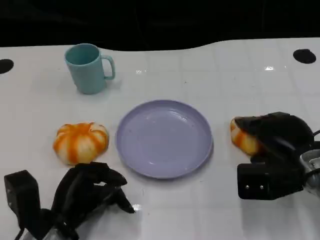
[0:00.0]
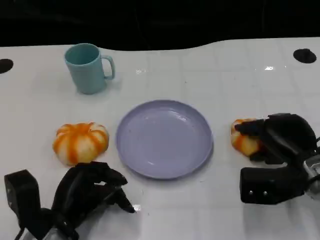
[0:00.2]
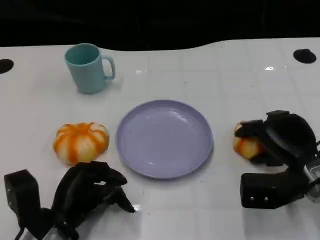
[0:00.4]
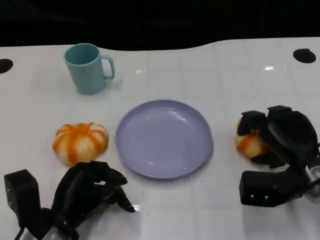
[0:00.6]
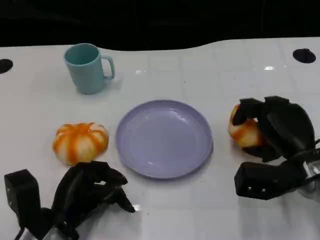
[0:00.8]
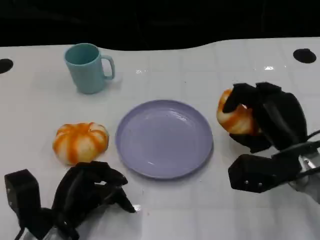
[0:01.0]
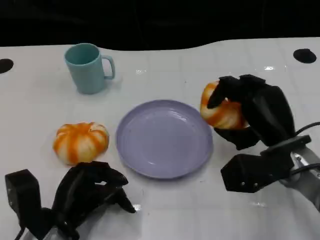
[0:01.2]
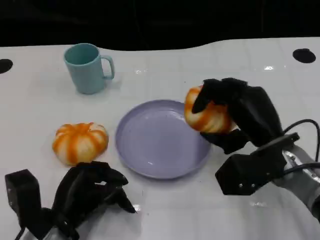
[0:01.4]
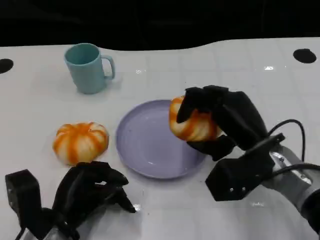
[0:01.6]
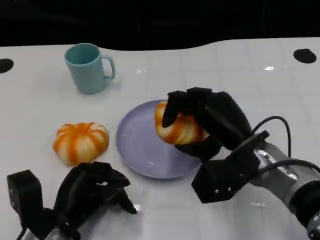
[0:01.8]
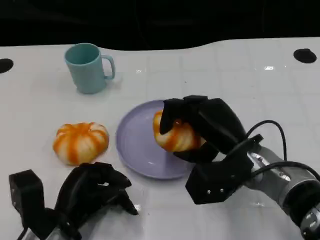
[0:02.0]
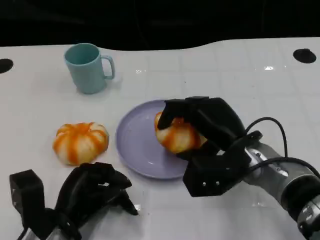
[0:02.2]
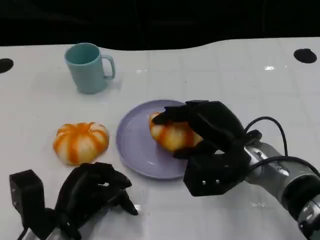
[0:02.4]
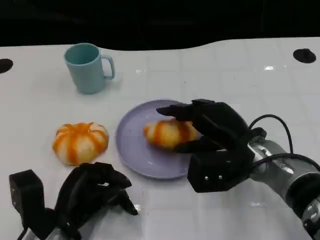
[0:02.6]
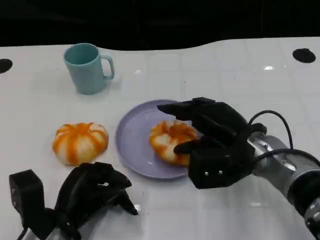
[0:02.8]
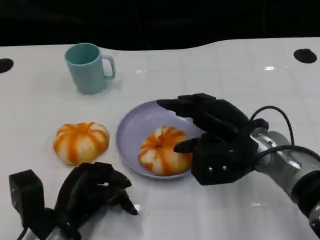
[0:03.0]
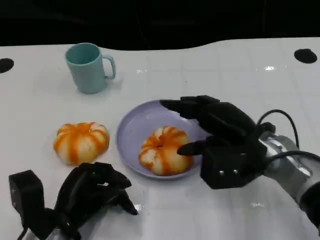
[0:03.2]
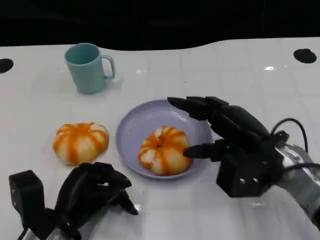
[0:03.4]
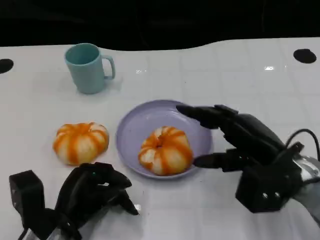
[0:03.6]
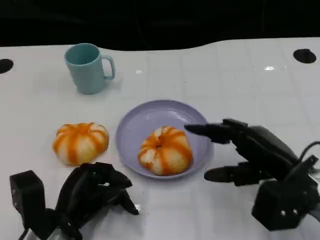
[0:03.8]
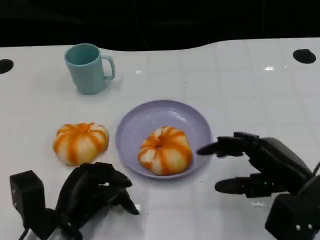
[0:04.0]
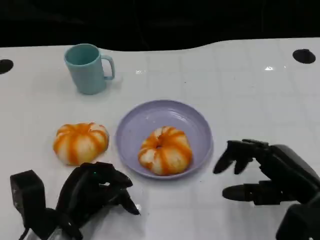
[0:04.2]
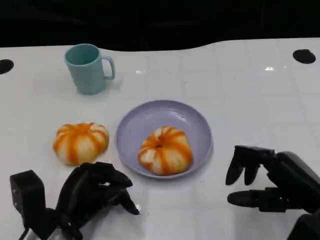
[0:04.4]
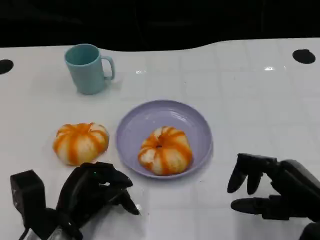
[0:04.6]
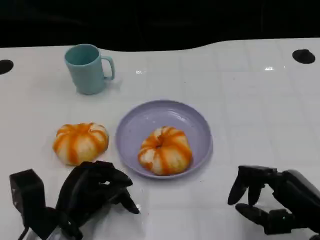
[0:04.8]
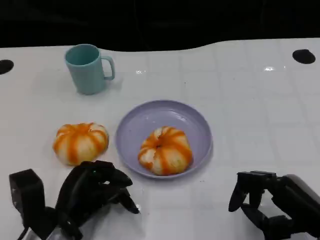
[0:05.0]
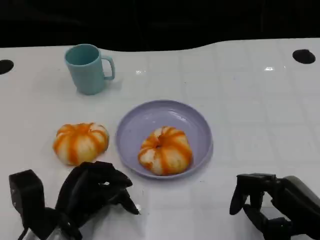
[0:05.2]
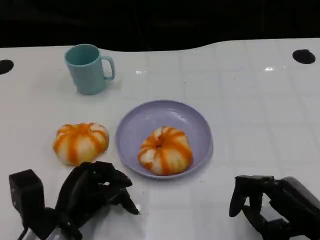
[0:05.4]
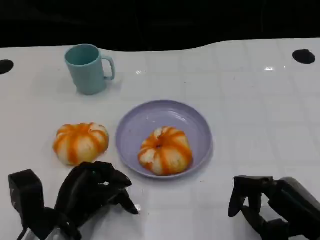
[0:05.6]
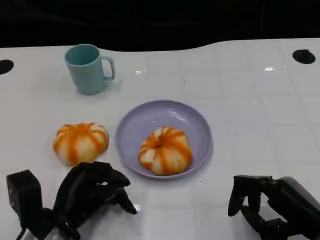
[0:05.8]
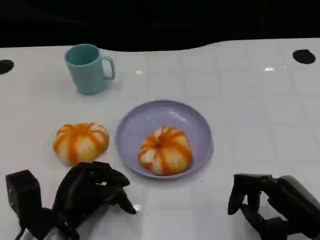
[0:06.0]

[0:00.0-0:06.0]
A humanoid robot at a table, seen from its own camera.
Task of the whole recording: Grasp the bread from the table and place it into the plate.
0:00.0 to 0:01.6: The right hand is displaced to the left by approximately 10 cm.
0:03.0 to 0:04.4: The right hand travels to the right and backward by about 15 cm.
0:04.4 to 0:06.0: There are only small adjustments of the hands.

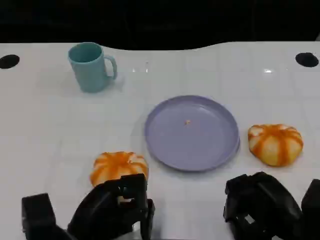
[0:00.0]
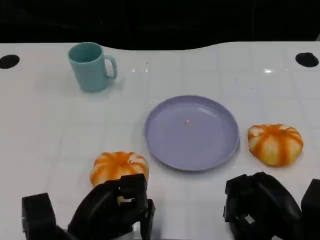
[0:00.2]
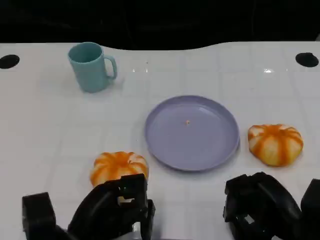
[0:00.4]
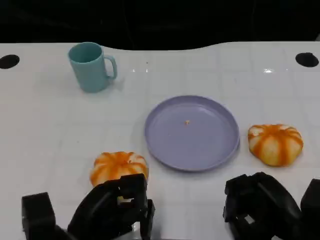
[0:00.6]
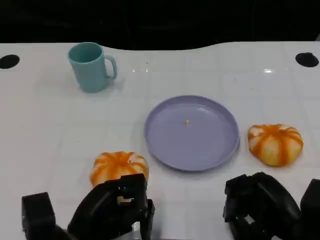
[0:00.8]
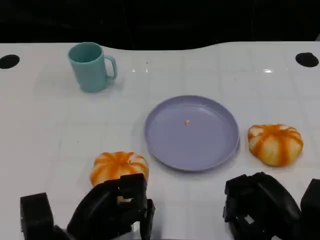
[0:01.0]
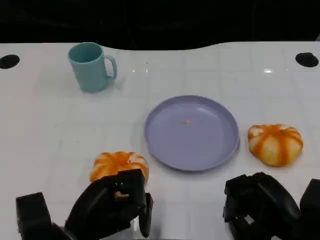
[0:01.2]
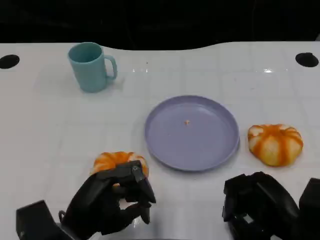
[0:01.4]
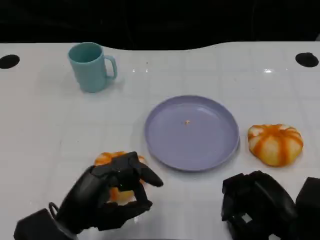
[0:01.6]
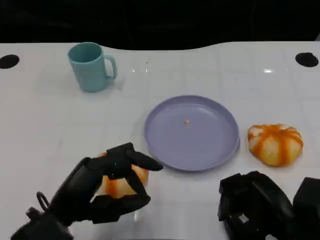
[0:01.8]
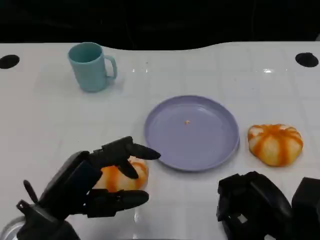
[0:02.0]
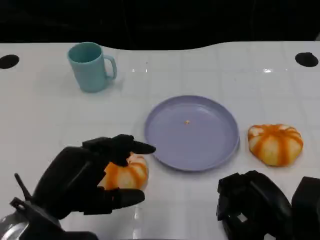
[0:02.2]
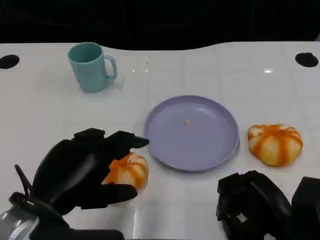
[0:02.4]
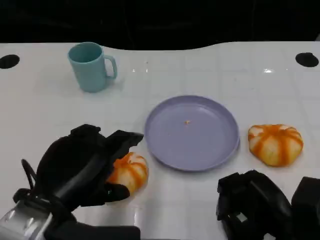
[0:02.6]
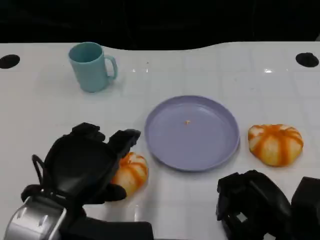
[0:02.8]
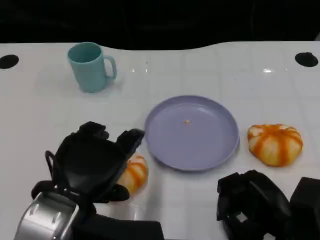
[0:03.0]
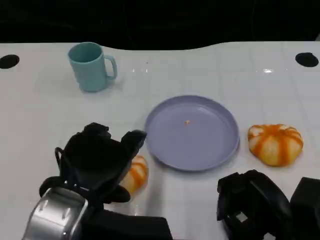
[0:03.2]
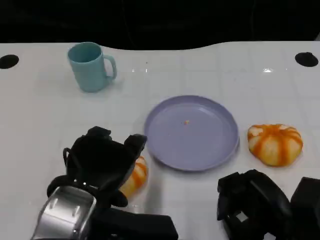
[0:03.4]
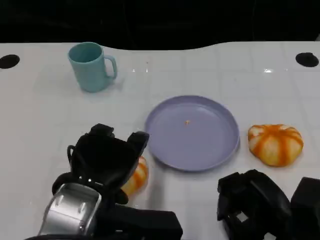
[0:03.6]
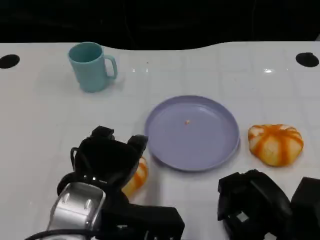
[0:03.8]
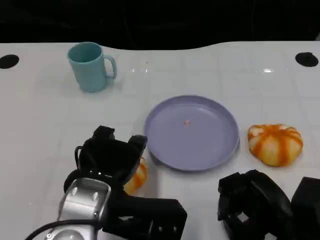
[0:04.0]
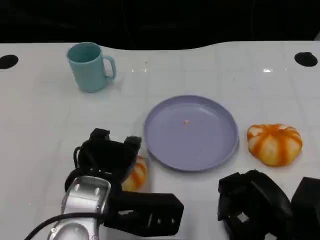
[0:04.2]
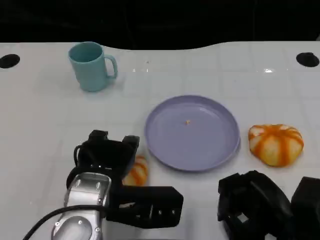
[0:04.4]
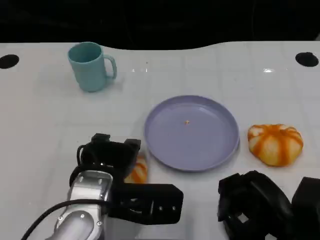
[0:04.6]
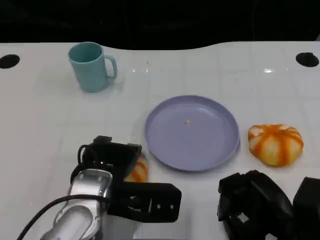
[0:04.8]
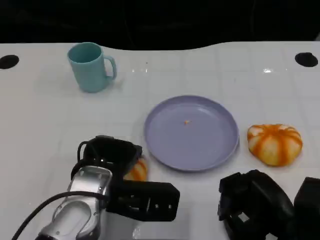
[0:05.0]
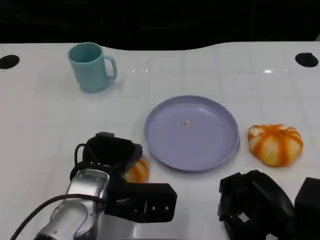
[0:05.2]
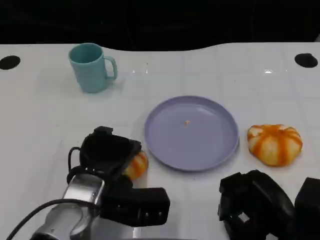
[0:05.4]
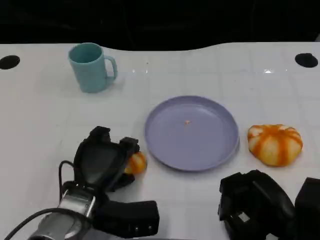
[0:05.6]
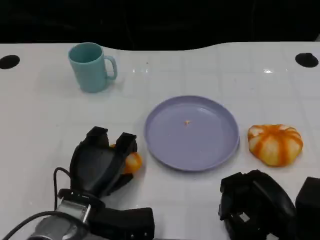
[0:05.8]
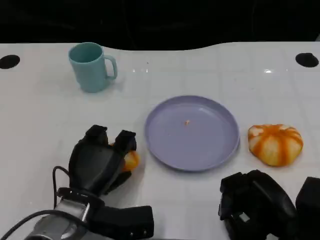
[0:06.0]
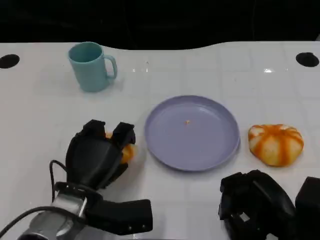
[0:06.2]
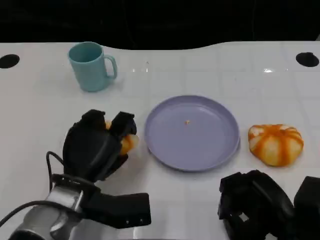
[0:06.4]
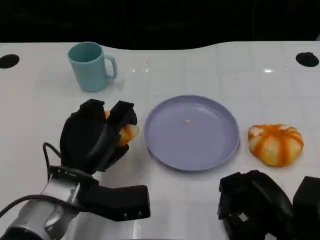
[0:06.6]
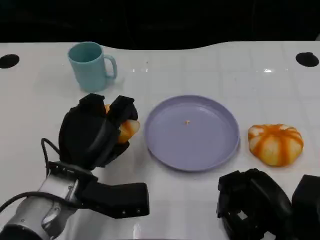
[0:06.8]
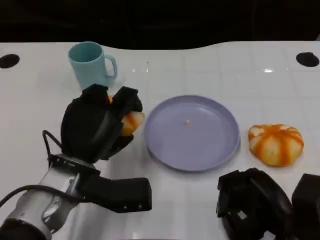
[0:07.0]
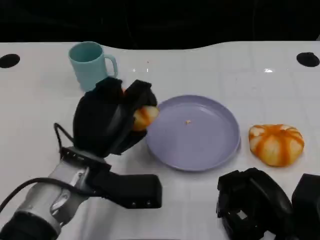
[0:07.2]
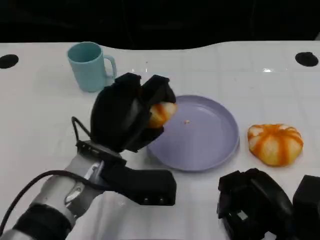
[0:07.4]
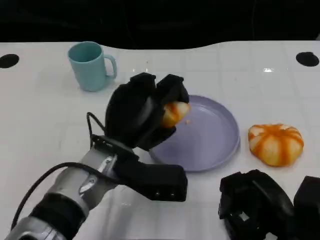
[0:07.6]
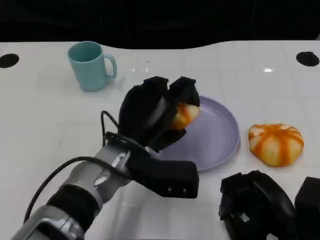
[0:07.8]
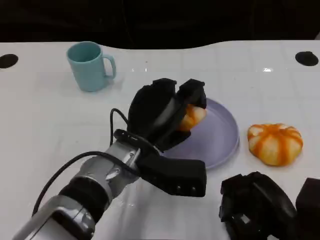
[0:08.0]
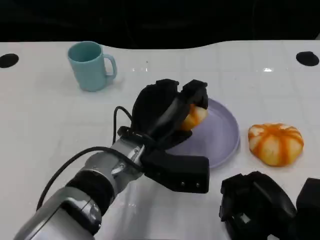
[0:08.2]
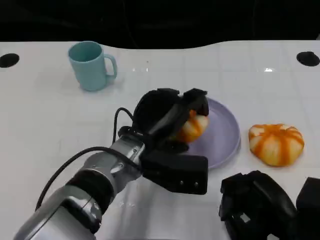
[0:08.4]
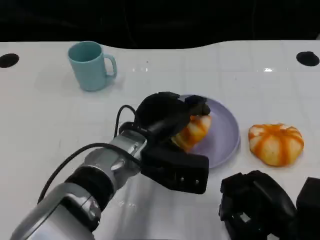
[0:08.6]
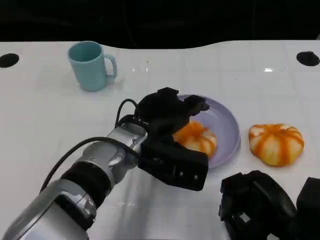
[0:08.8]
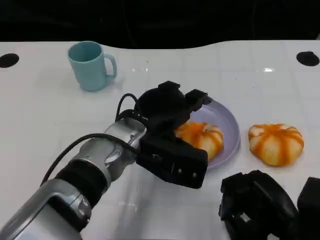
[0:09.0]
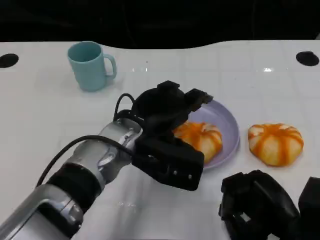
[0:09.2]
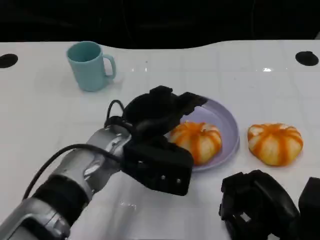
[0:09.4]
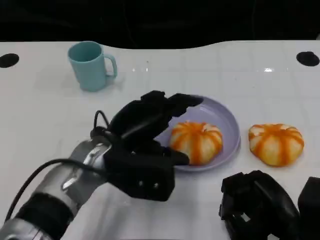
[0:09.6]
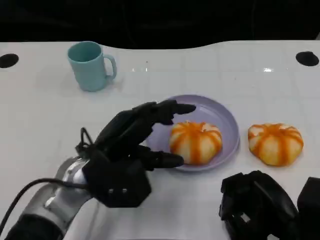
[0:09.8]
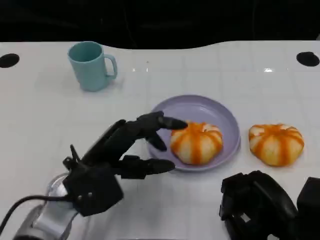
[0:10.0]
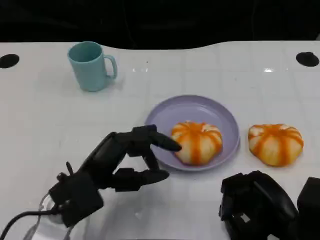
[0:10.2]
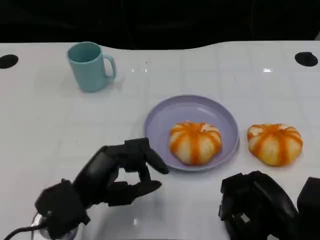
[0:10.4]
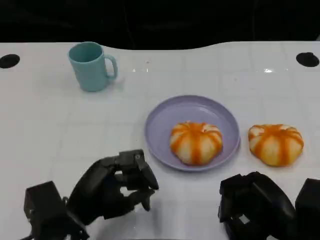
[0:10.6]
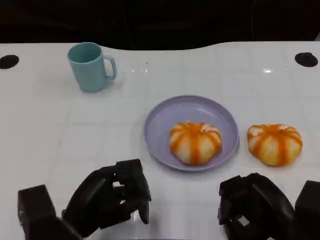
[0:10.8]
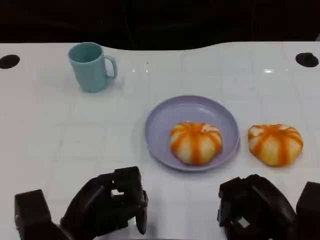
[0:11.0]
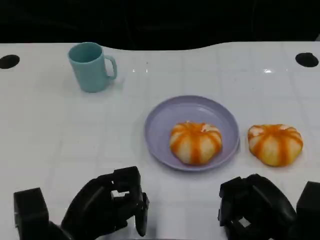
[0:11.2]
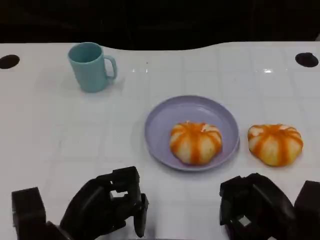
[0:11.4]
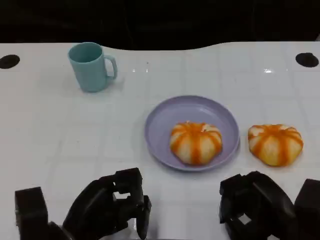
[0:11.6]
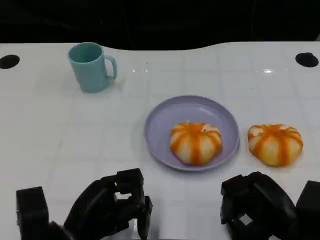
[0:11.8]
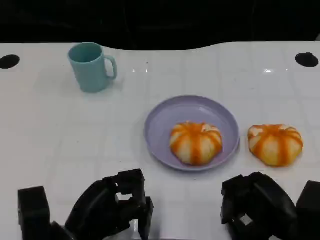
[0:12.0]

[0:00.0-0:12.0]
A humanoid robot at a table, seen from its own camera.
Task of the whole recording: Grasp the bread from the table and place it into the plate.
0:01.6 to 0:03.0: The left hand travels upward by some 10 cm.
0:03.0 to 0:04.4: The left hand changes place by about 10 cm.
0:04.4 to 0:06.0: The left hand moves downward, approximately 10 cm.
0:06.0 to 0:07.6: The left hand is displaced upward and to the right by approximately 10 cm.
0:09.0 to 0:10.4: The left hand goes roughly 15 cm to the left, backward and downward.

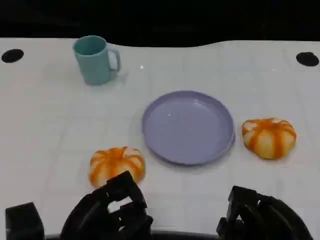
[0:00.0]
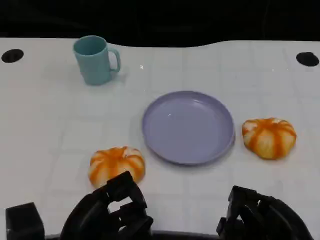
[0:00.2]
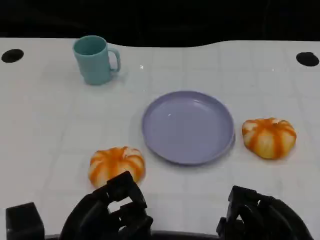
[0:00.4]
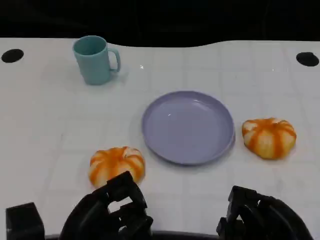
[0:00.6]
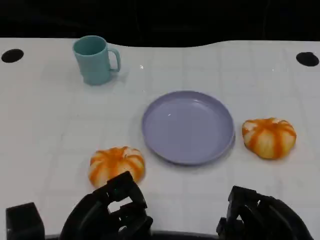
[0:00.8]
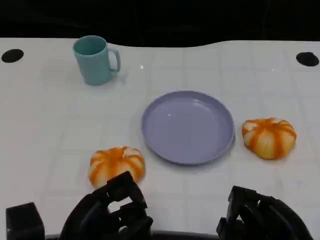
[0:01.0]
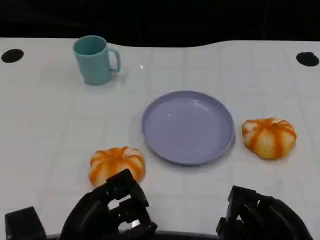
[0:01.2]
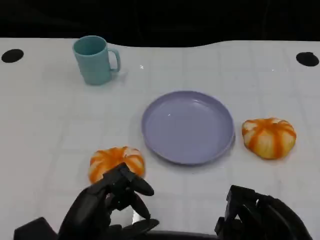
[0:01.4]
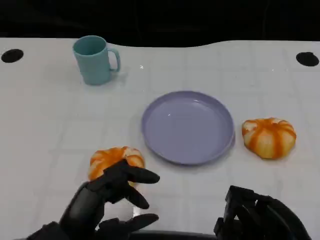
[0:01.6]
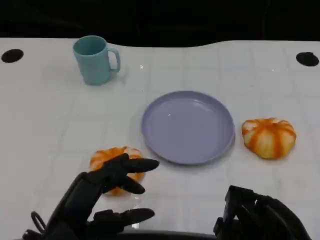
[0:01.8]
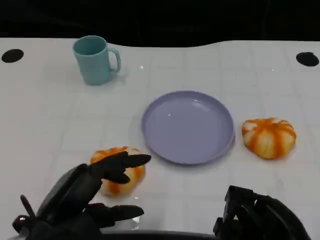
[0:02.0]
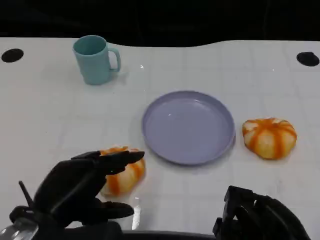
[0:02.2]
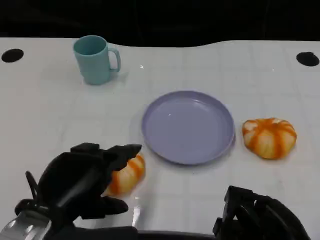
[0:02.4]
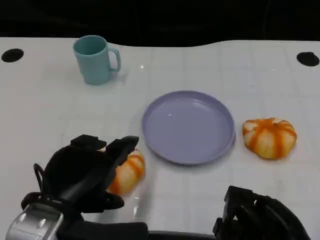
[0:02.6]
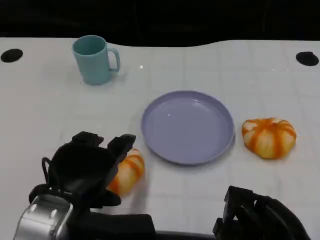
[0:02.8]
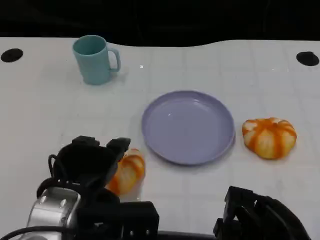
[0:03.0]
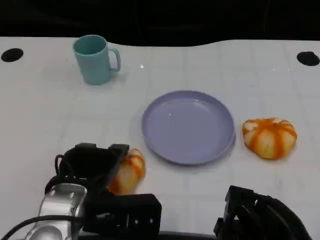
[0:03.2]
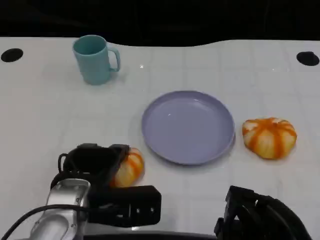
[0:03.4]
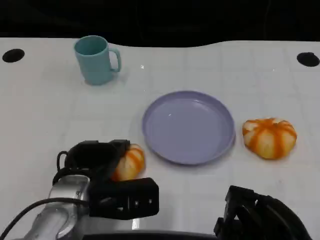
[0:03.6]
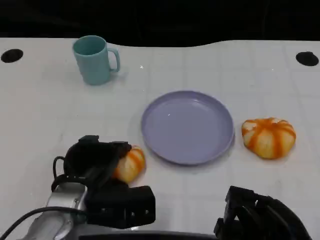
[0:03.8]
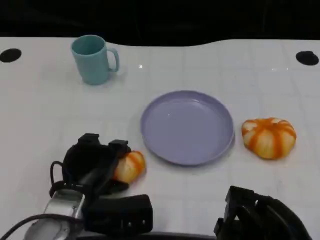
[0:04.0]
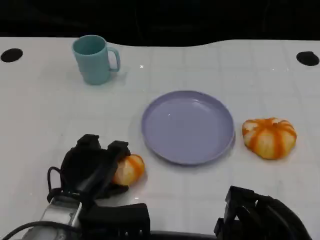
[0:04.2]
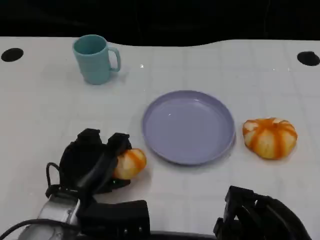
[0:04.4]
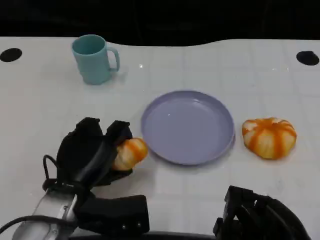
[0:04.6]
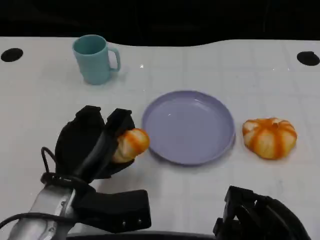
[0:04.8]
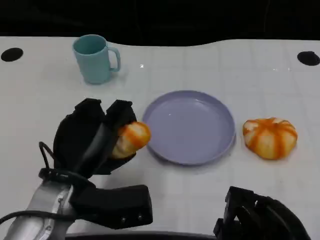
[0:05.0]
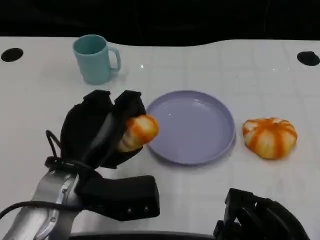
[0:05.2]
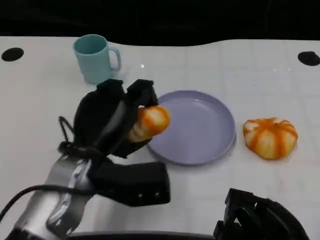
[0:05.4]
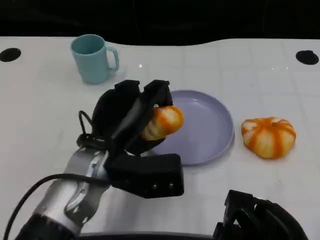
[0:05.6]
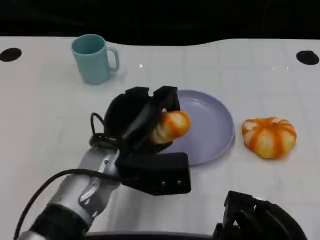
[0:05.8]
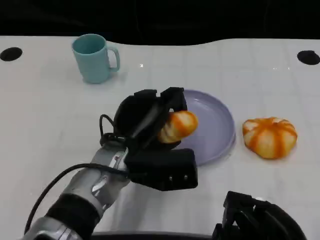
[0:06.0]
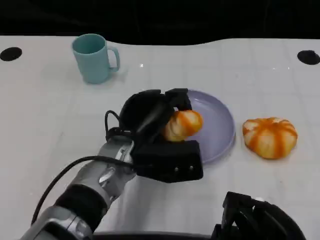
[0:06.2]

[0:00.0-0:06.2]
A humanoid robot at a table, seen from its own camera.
Task of the whole recording: Grasp the bread from the table and place it into the plate.
0:01.6 to 0:03.2: The left hand is displaced forward by approximately 5 cm.
0:04.6 to 0:06.2: The left hand goes some 10 cm to the right and forward.
